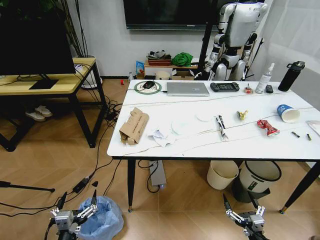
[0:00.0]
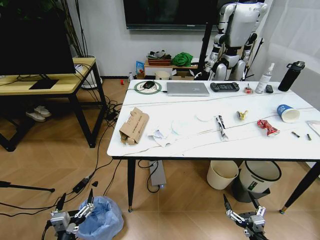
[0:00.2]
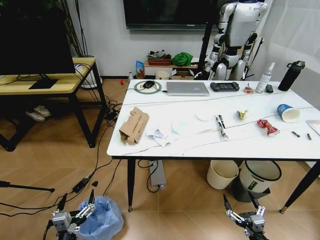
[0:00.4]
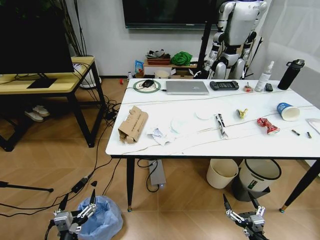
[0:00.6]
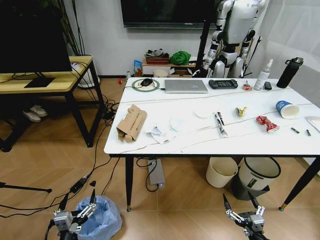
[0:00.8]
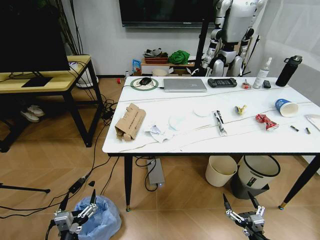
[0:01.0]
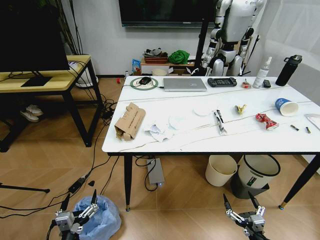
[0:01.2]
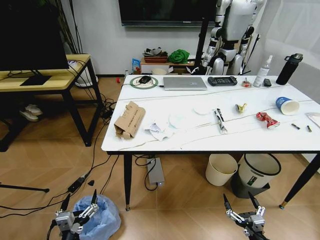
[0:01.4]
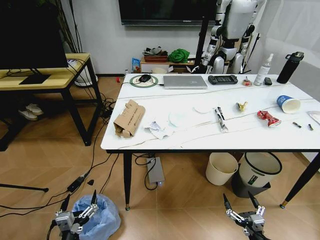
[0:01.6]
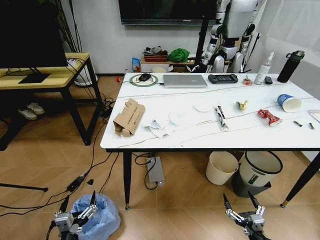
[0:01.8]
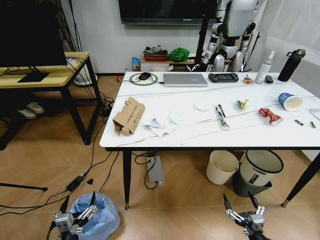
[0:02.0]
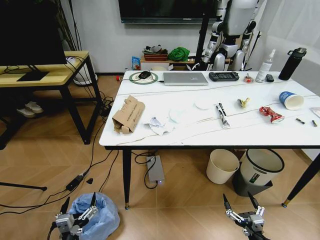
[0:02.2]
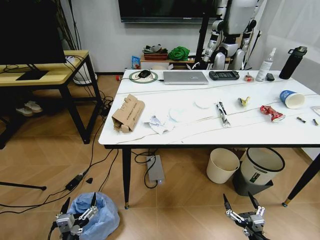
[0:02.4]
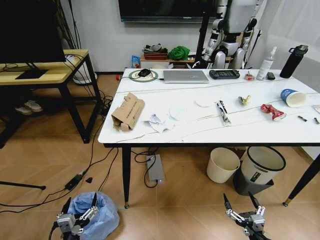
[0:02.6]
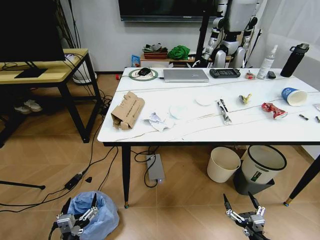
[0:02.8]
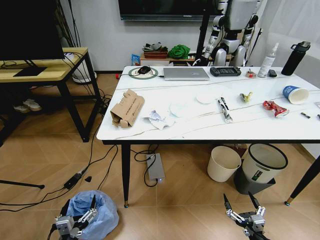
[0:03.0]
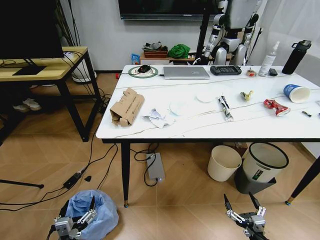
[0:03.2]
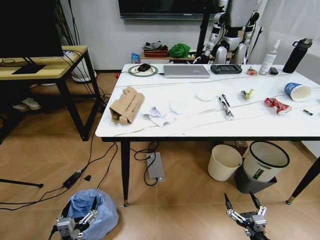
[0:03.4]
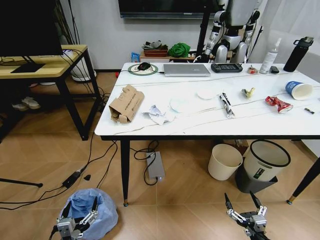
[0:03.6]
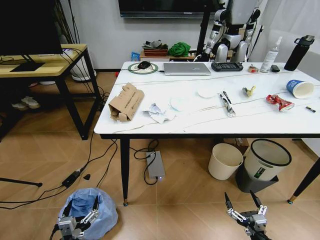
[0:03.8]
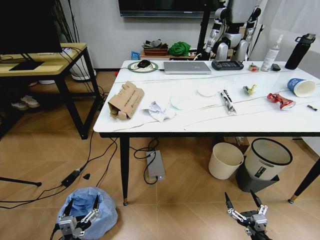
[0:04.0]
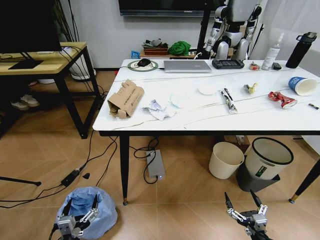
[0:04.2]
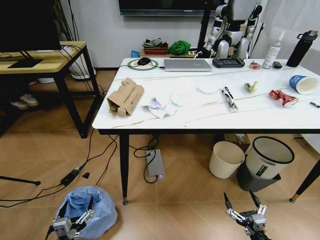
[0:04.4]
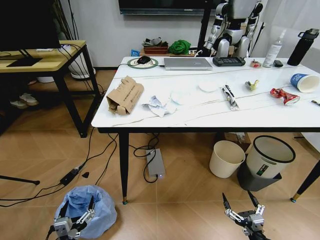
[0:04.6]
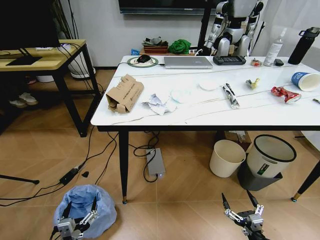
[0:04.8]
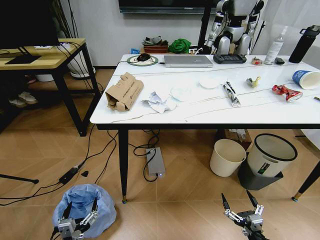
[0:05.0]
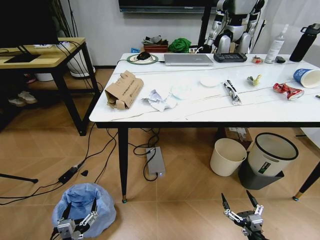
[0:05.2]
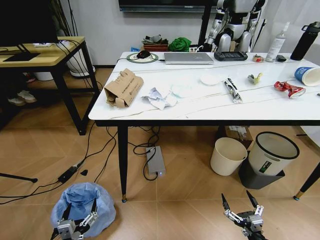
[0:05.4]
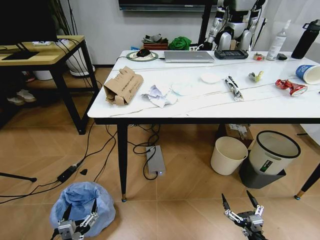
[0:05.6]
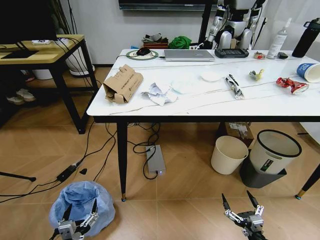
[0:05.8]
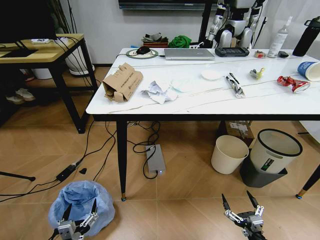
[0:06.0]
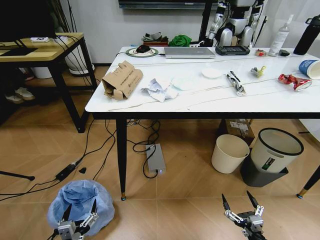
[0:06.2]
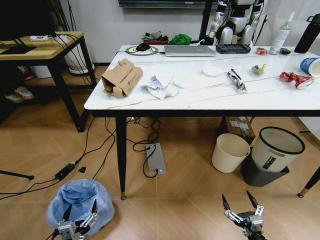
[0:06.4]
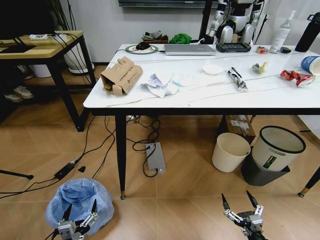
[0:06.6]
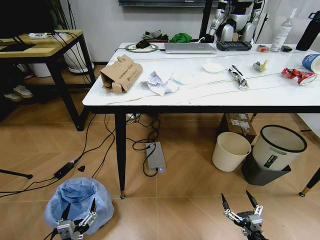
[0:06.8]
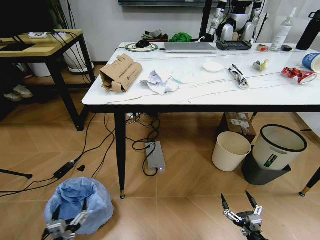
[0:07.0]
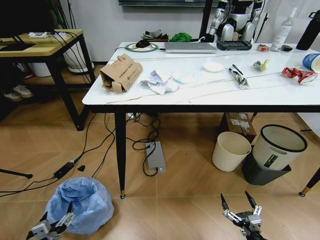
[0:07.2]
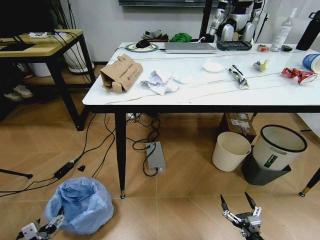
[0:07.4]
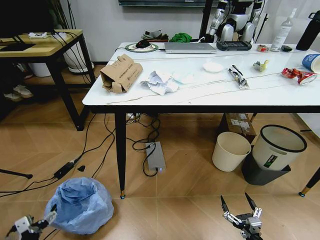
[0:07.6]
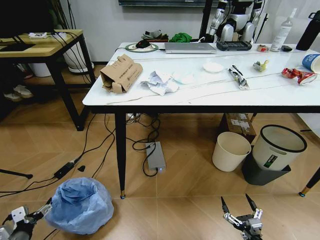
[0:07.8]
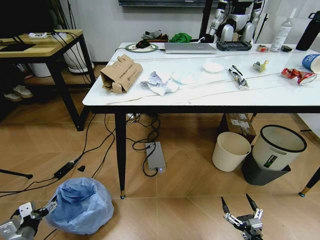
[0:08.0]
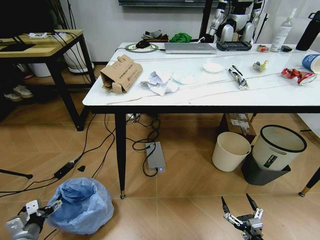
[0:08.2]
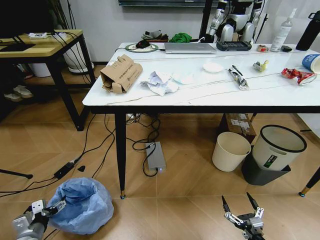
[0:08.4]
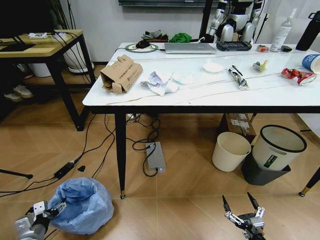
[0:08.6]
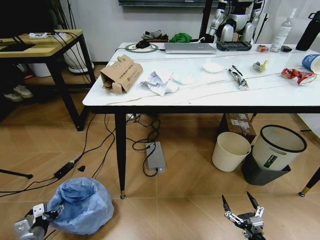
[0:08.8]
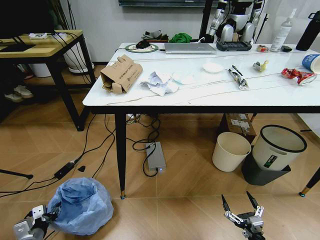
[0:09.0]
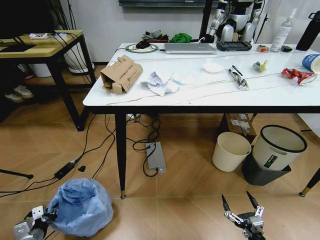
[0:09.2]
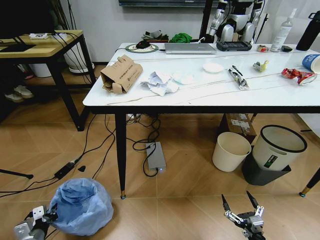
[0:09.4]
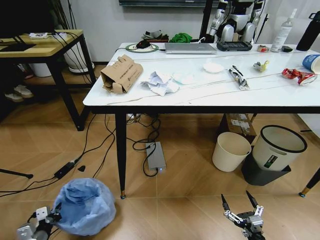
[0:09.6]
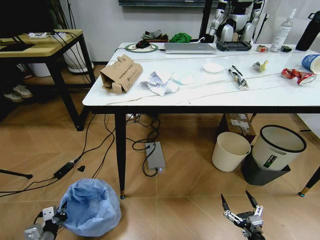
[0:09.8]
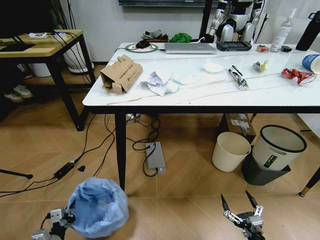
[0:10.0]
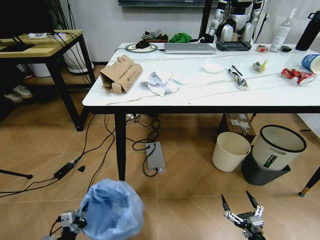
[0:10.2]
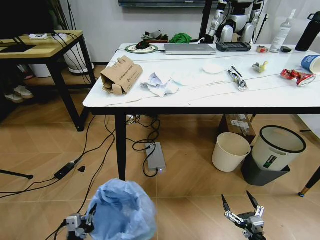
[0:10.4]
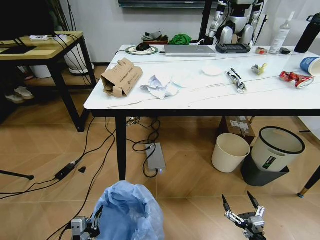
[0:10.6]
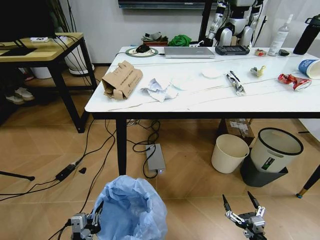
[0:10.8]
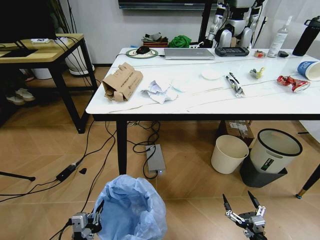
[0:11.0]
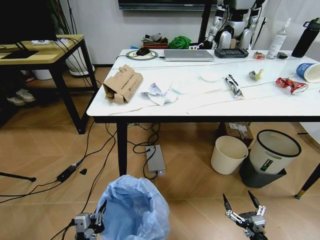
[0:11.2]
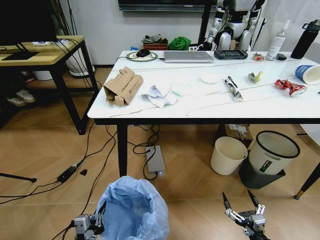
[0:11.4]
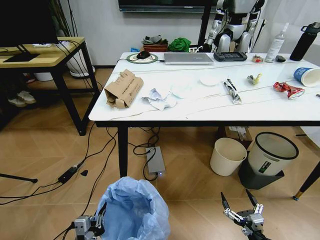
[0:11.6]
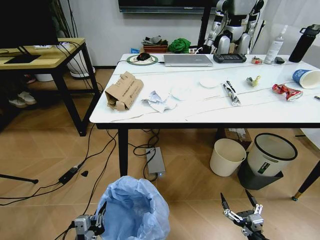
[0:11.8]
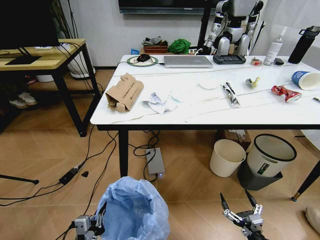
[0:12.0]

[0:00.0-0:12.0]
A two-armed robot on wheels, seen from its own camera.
Task of the whole recording: Pick up the trash bin and place the trash from the table into it.
0:06.0 to 0:07.6: The left gripper goes roughly 15 cm to the left.
0:07.6 to 0:09.0: The left gripper travels forward by some 5 cm, and closes up.
0:09.0 to 0:10.4: The left gripper goes roughly 20 cm to the right and backward, and closes.
0:10.4 to 0:12.0: The left gripper shifts by roughly 5 cm.

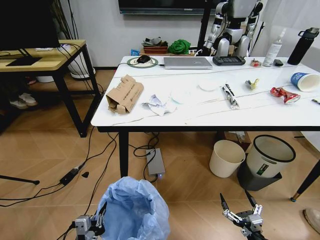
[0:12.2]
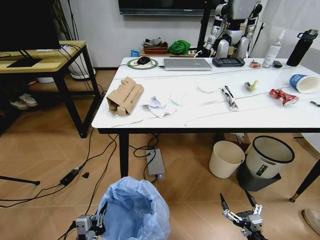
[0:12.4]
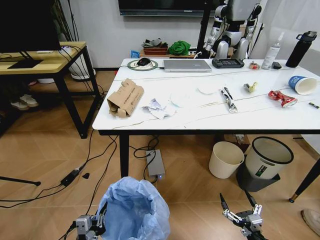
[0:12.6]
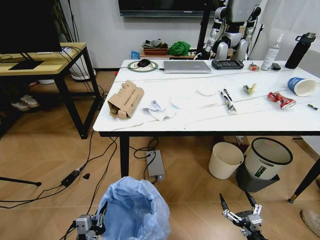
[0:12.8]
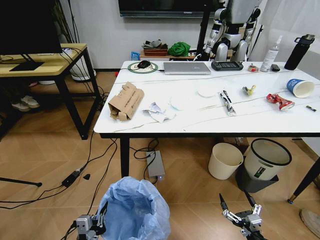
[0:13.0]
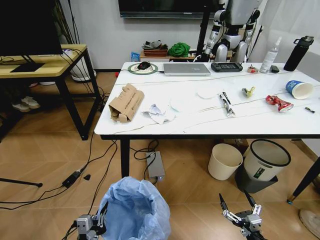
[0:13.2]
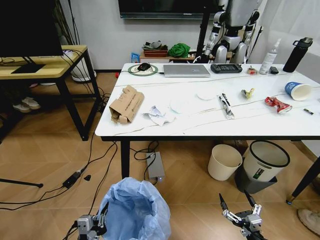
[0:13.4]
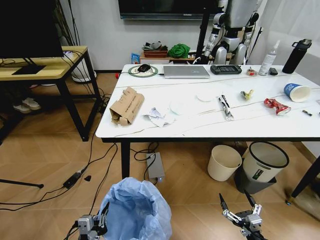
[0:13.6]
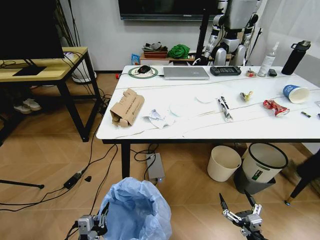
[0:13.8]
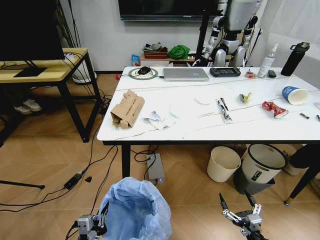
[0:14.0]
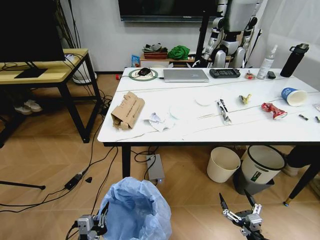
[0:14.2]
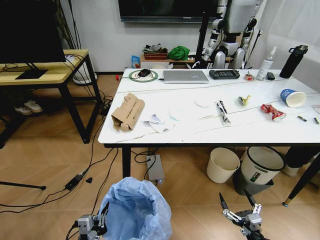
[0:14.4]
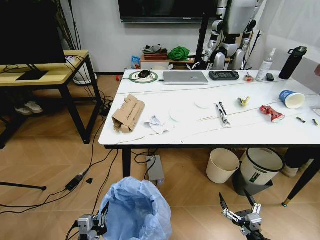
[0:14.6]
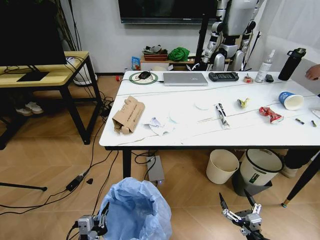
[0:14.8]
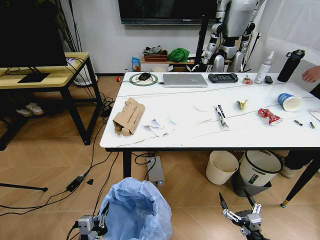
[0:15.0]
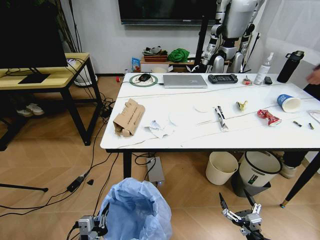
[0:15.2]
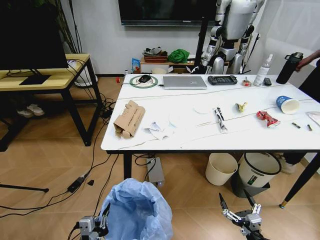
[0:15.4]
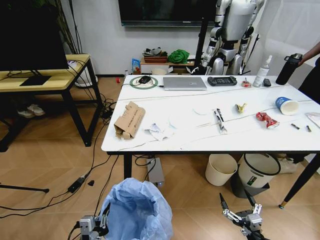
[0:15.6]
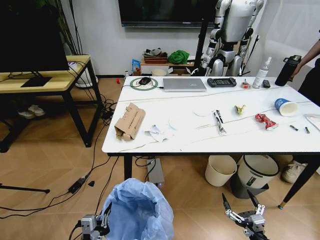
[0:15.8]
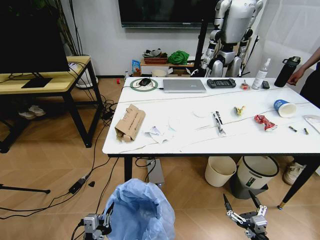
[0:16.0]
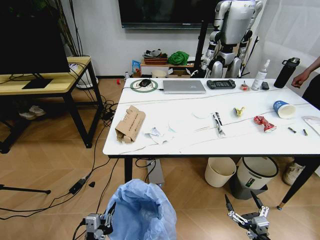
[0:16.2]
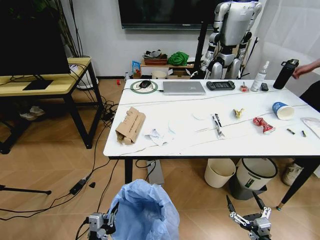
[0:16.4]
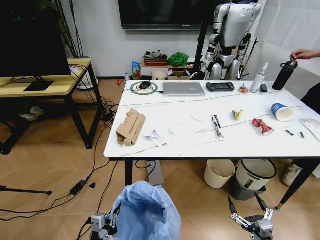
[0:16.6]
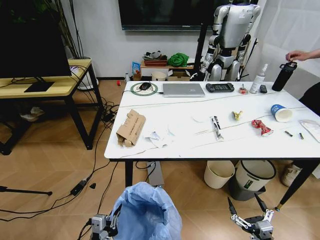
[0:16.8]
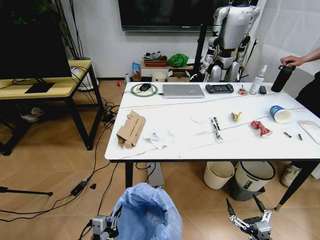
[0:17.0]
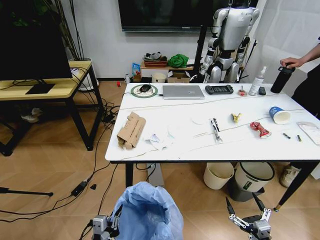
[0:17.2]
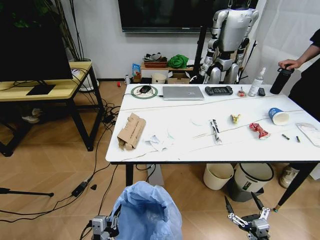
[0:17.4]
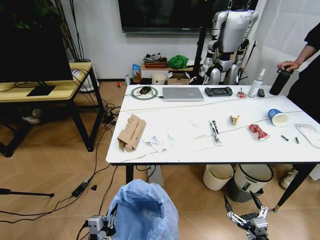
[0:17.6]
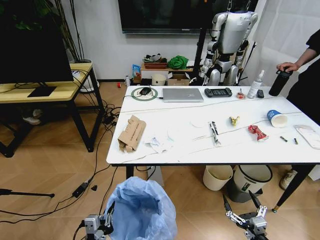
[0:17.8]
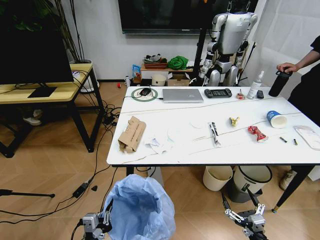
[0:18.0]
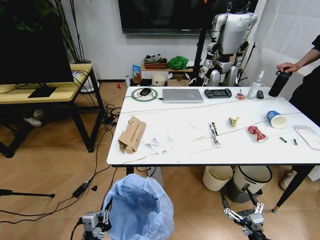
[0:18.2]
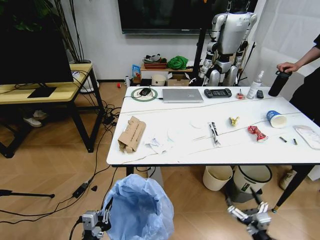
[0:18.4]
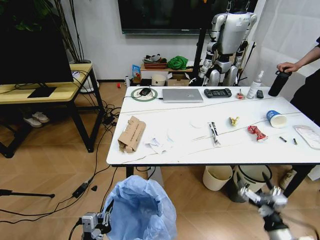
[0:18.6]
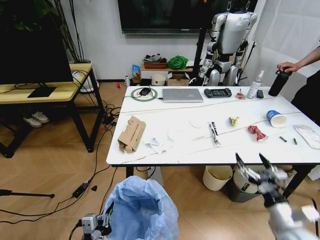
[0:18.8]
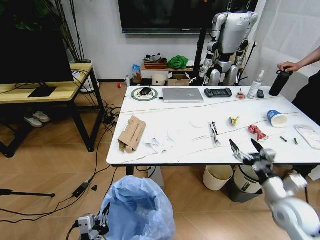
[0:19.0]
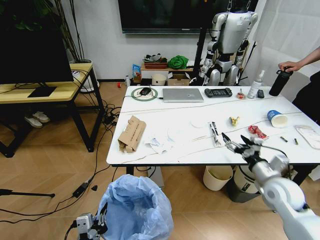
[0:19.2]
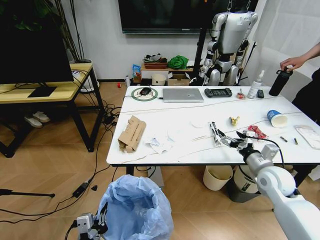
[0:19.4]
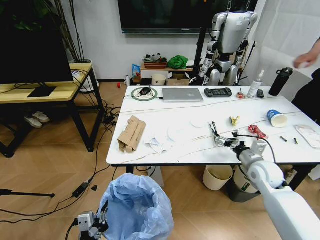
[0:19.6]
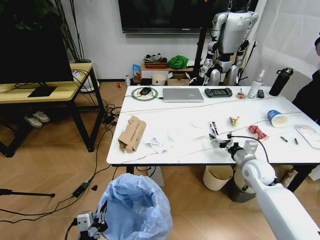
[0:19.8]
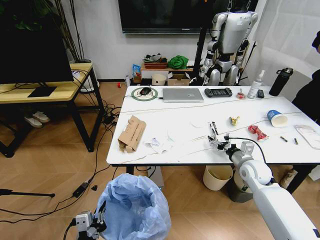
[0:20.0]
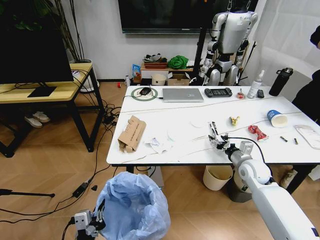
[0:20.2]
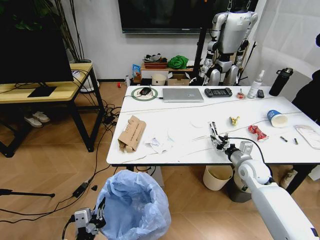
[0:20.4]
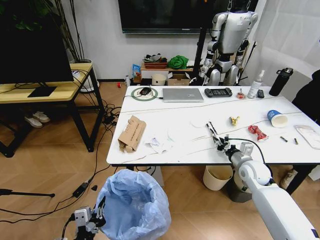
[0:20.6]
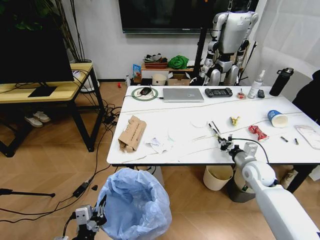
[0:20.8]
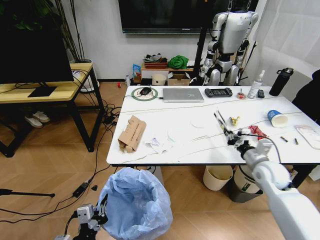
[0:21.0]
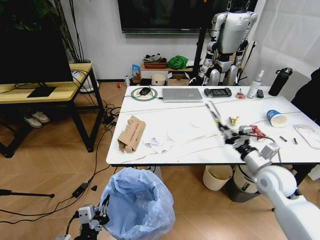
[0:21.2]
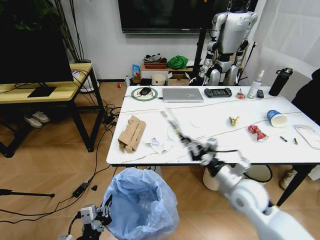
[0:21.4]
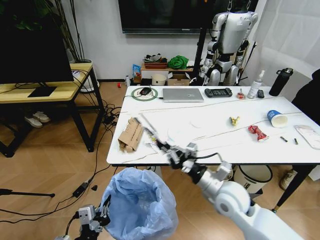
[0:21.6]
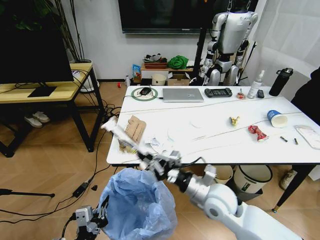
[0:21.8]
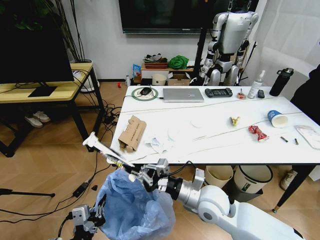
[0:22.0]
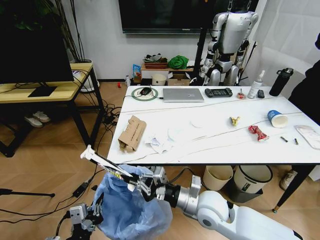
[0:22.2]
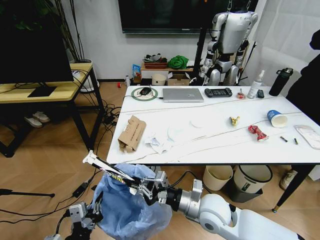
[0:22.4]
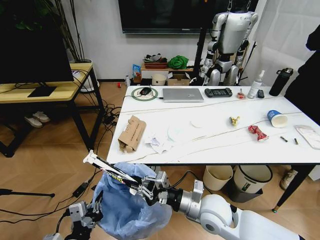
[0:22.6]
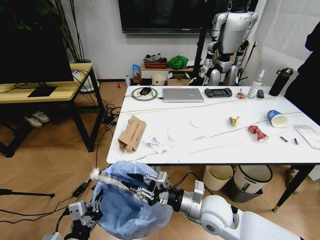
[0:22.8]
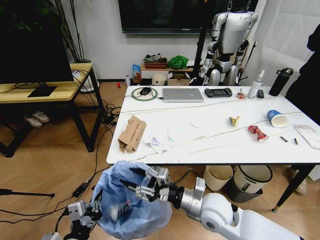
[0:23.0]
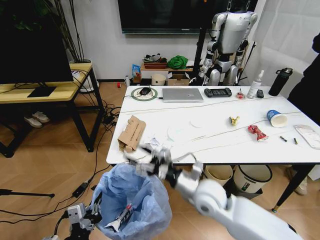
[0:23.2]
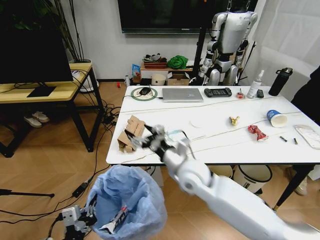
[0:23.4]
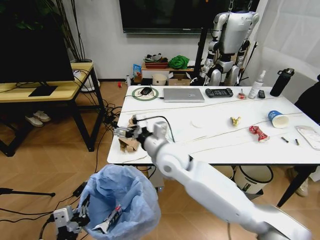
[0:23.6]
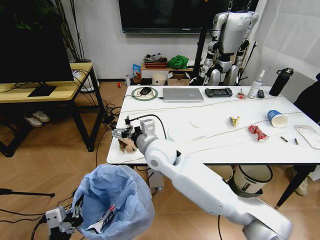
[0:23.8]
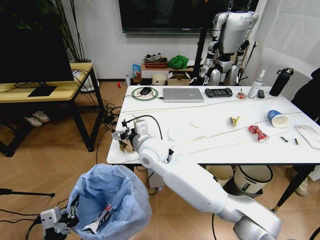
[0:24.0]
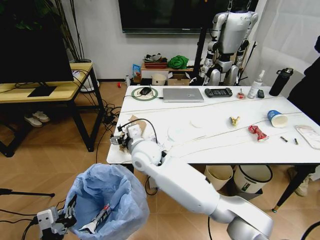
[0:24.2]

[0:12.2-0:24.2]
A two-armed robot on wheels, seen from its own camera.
Task of the whole recording: Pick up the trash bin and place the trash from the table into it.
0:18.2 to 0:19.8: The right gripper shifts roughly 35 cm forward and upward.
0:19.8 to 0:21.2: The right gripper shifts roughly 10 cm backward and upward, and closes up.
0:21.2 to 0:22.6: The right gripper shifts about 20 cm to the left.
0:22.6 to 0:24.2: The left gripper changes place by some 5 cm. The right gripper is displaced to the left, forward and upward by roughly 25 cm, and opens.
